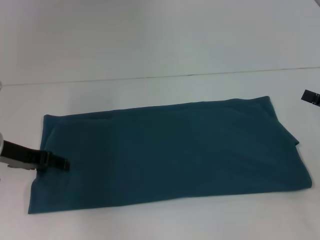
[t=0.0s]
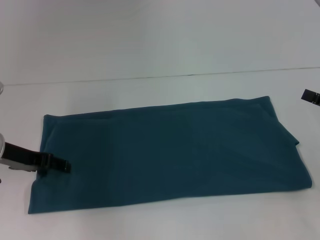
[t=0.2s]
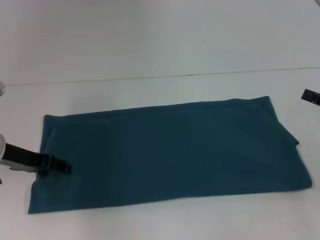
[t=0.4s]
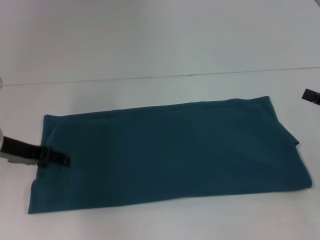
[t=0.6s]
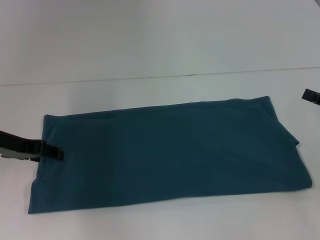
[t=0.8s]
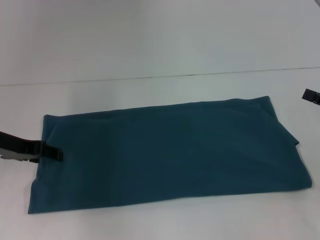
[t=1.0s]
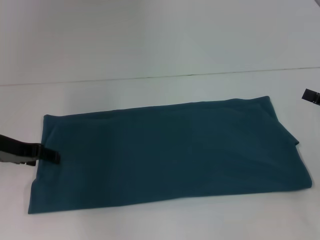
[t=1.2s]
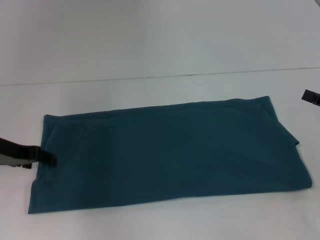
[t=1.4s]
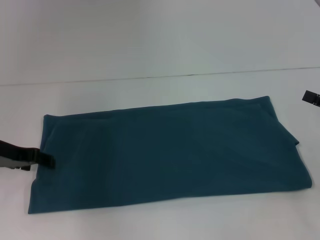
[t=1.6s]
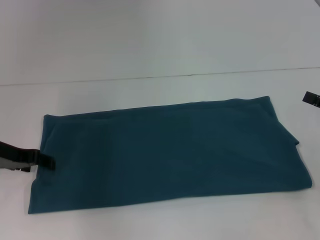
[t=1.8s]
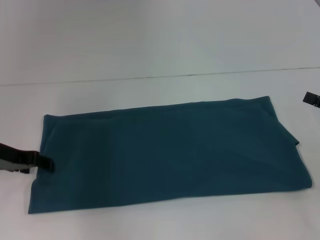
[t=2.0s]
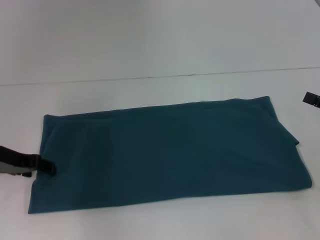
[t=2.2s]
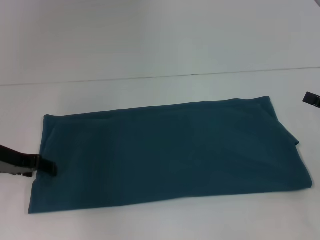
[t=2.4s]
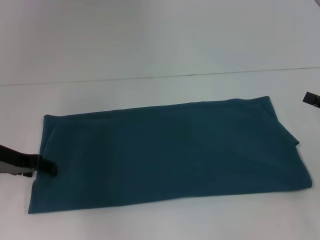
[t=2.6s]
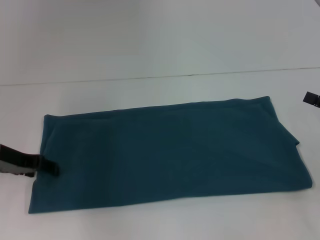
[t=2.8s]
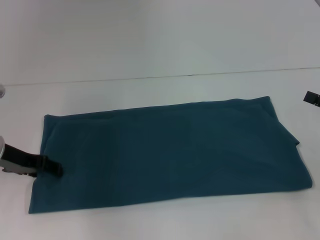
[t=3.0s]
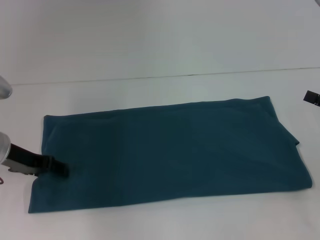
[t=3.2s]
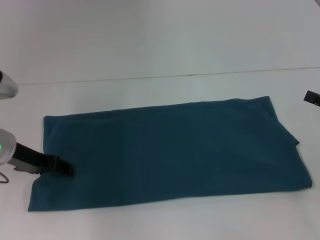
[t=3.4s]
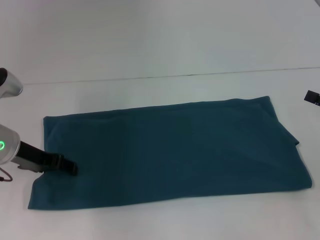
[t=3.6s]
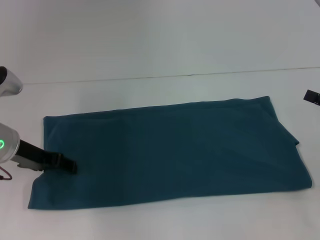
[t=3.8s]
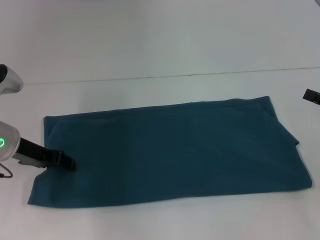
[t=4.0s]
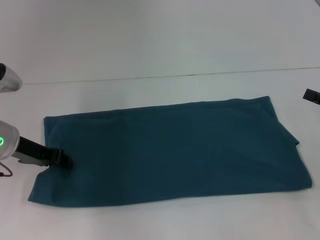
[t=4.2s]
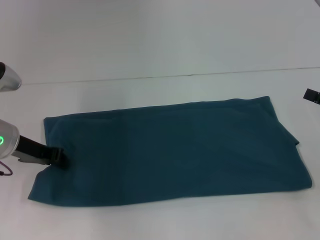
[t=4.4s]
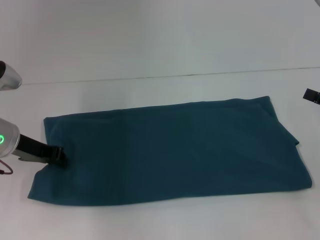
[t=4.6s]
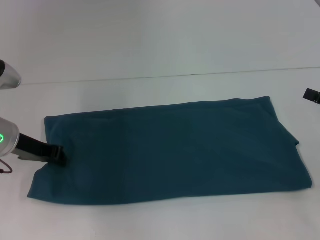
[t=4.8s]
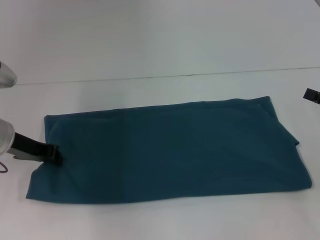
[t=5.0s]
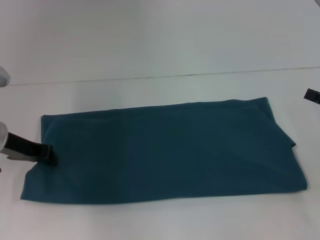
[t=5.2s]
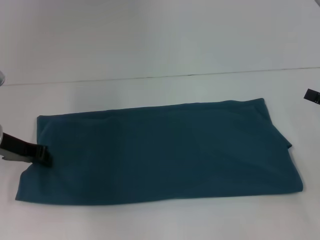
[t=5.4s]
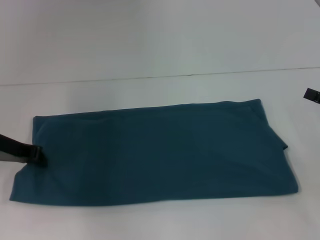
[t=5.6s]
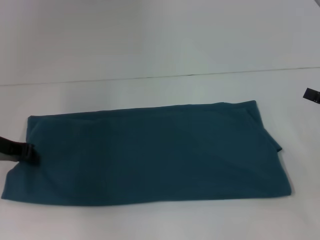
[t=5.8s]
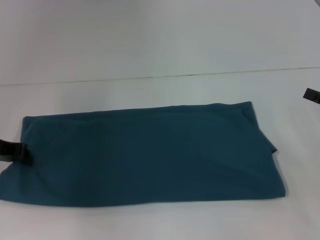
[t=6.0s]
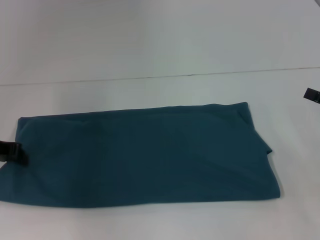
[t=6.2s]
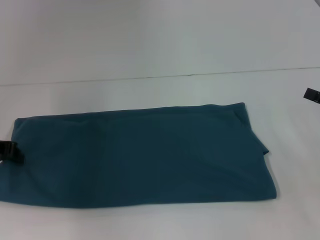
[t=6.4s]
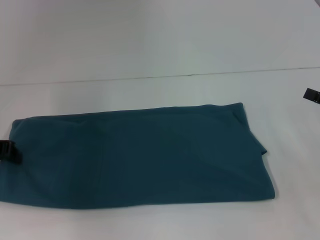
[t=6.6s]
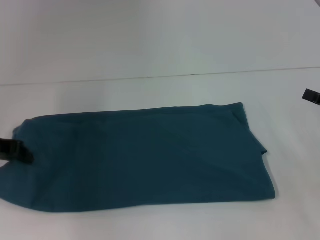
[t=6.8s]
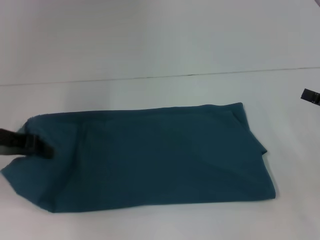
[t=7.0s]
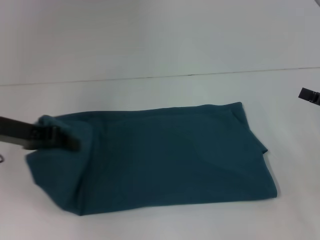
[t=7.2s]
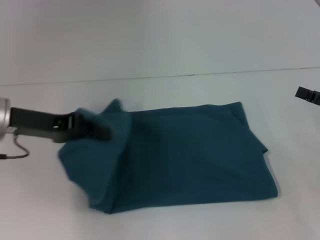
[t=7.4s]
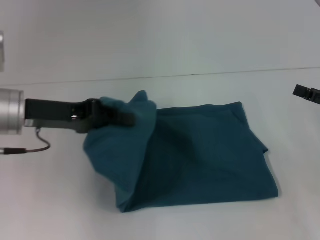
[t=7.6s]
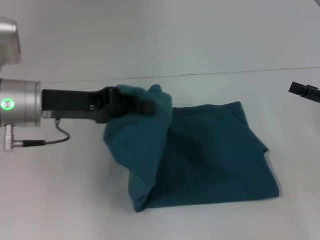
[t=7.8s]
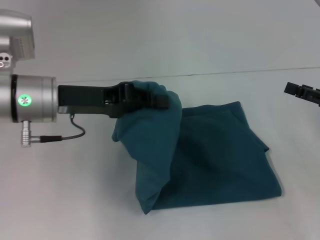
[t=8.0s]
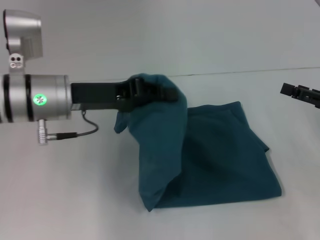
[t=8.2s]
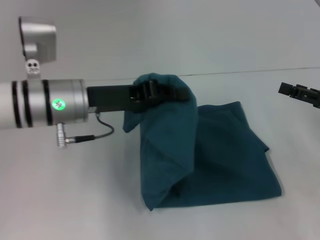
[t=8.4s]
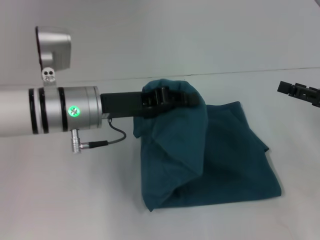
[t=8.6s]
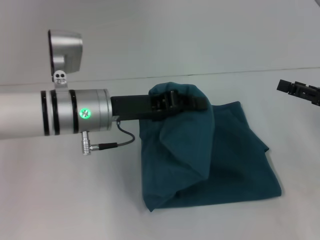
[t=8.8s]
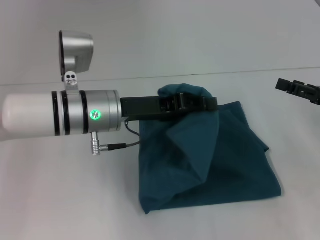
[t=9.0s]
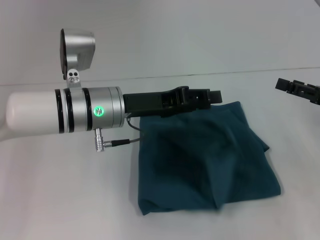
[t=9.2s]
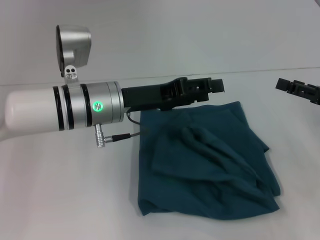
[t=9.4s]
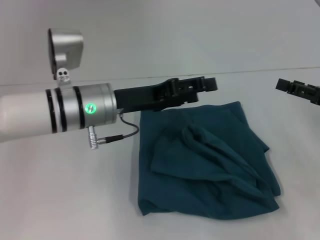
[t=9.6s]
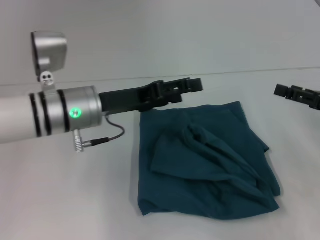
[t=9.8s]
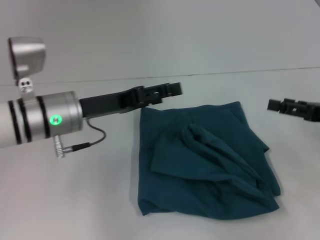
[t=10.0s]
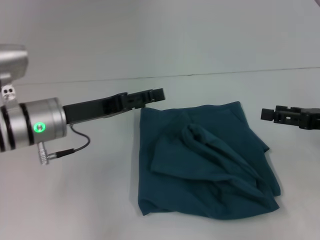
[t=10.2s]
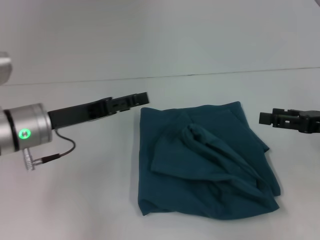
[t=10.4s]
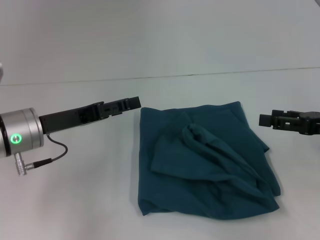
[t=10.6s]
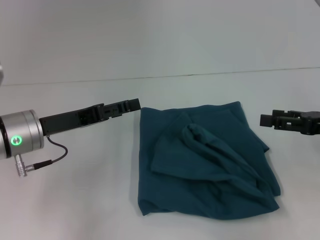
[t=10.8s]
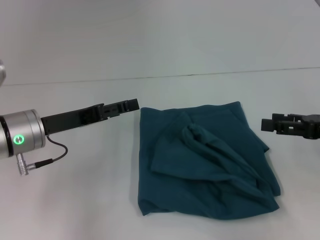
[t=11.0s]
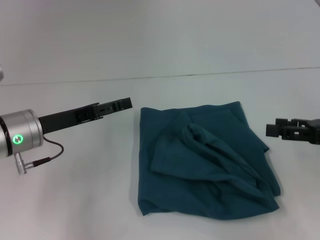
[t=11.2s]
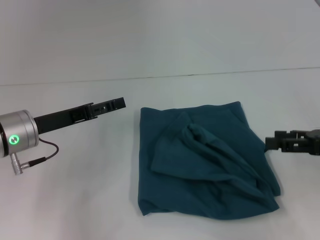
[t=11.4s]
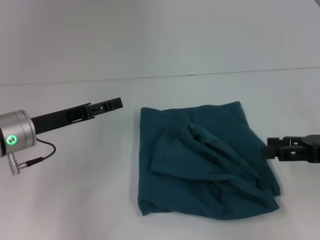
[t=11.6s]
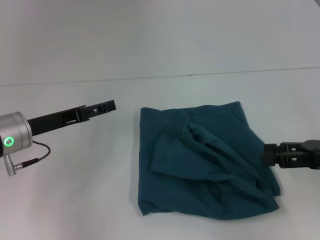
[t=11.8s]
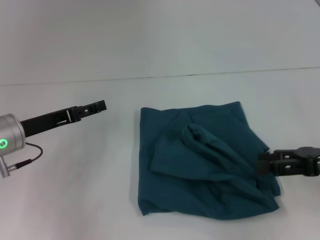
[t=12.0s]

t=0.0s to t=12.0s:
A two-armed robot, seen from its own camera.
Step, t=0.0s to t=9.8s: Fold the clothes to the left.
t=1.6s to t=4.4s: The grippers move only a little.
t=4.4s to t=6.0s: The left gripper shifts about 5 cm to the left, and closes up.
t=6.0s to t=7.6s: The left gripper heads to the right, covering some 10 cm.
t=7.6s to t=9.0s: The left gripper goes about 10 cm to the right.
t=9.0s to t=10.4s: The left gripper heads to the left, covering about 10 cm, and opens its fingers.
t=10.4s to t=12.0s: The left gripper changes place by approximately 5 cm.

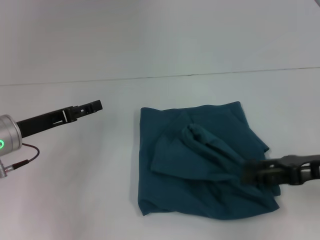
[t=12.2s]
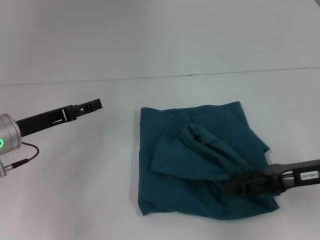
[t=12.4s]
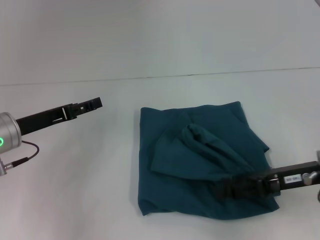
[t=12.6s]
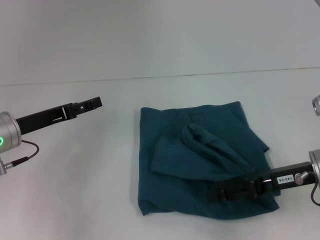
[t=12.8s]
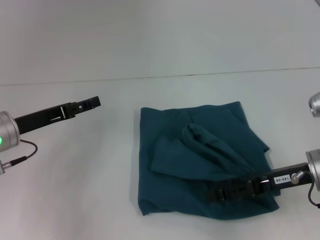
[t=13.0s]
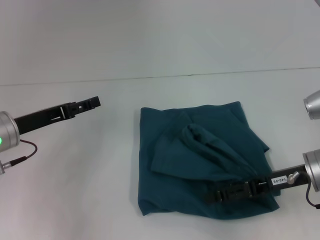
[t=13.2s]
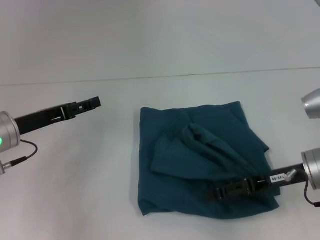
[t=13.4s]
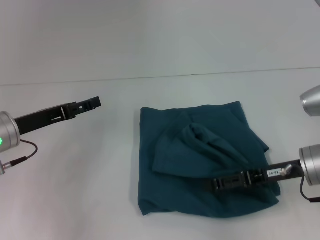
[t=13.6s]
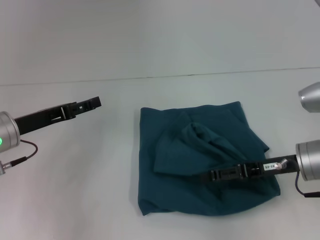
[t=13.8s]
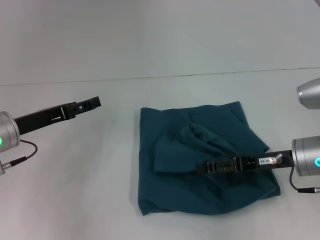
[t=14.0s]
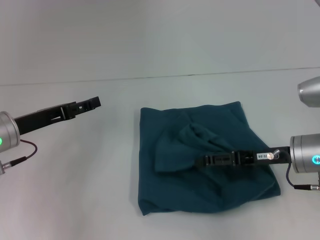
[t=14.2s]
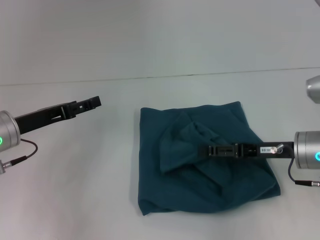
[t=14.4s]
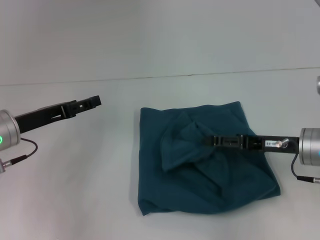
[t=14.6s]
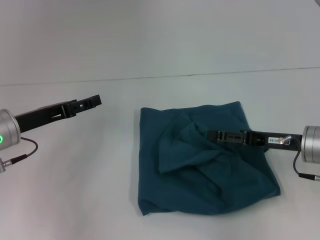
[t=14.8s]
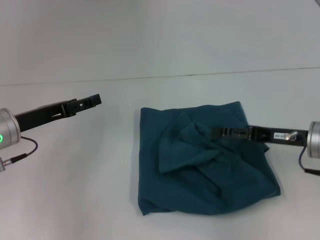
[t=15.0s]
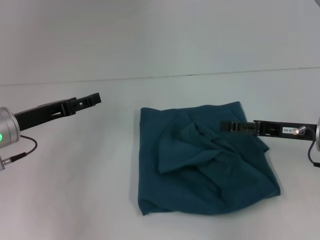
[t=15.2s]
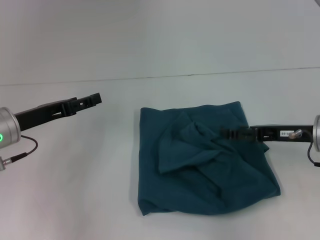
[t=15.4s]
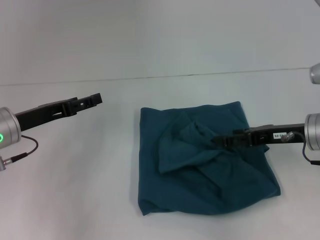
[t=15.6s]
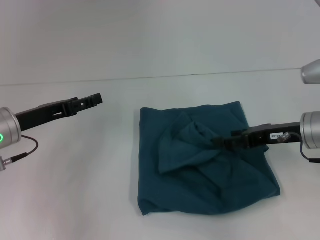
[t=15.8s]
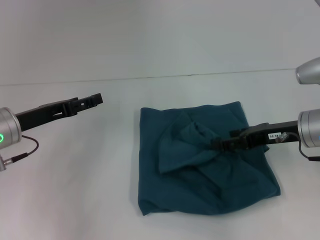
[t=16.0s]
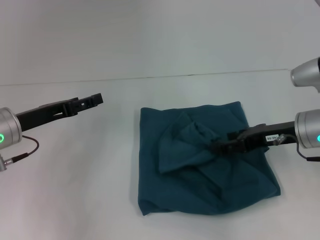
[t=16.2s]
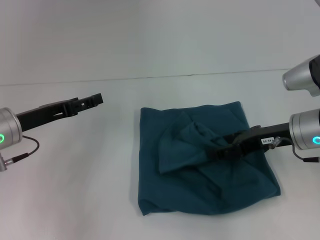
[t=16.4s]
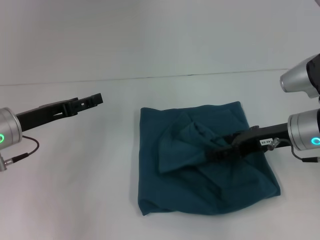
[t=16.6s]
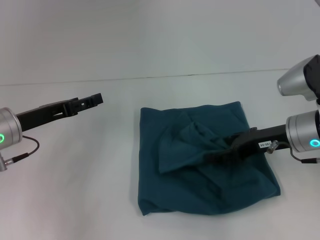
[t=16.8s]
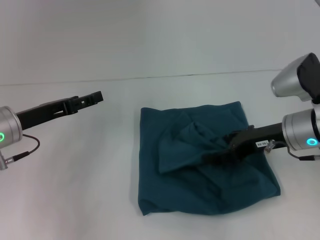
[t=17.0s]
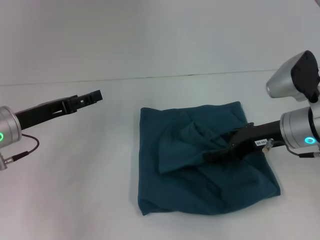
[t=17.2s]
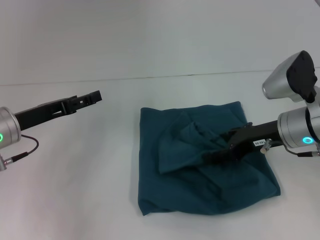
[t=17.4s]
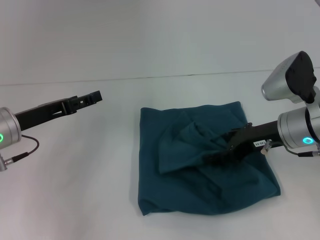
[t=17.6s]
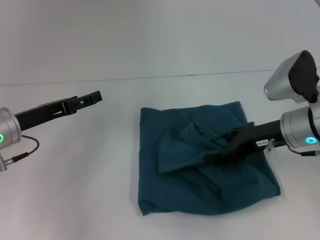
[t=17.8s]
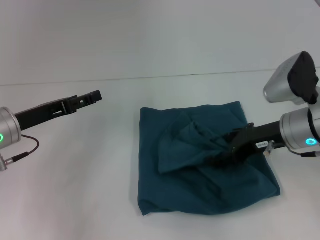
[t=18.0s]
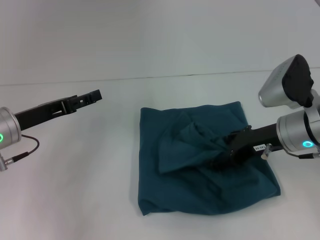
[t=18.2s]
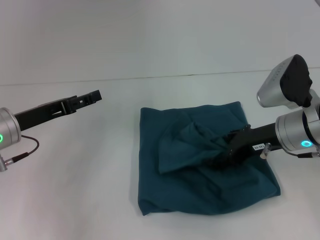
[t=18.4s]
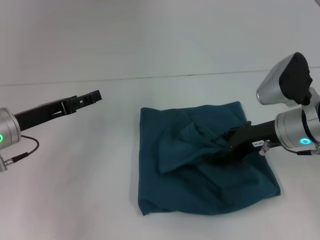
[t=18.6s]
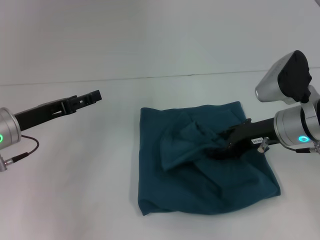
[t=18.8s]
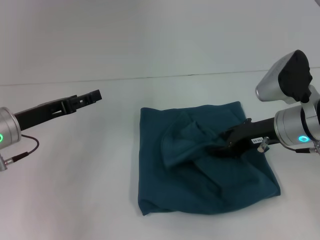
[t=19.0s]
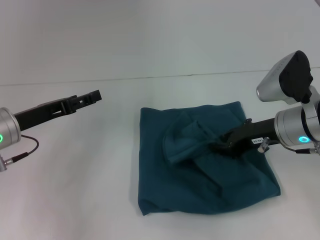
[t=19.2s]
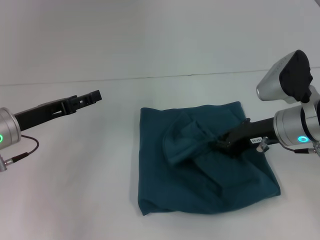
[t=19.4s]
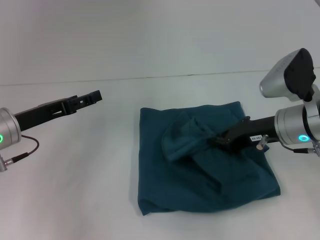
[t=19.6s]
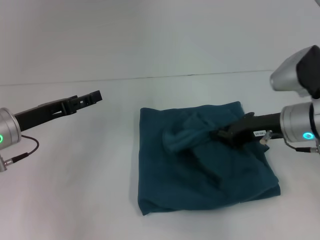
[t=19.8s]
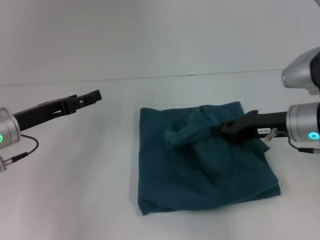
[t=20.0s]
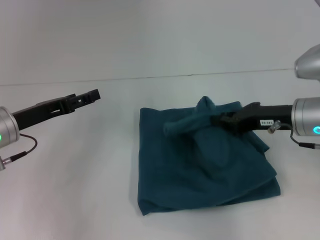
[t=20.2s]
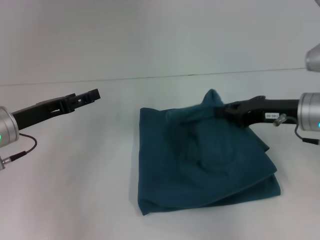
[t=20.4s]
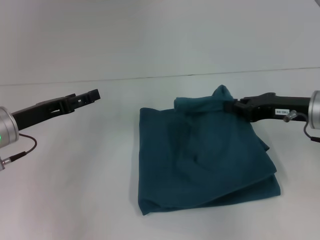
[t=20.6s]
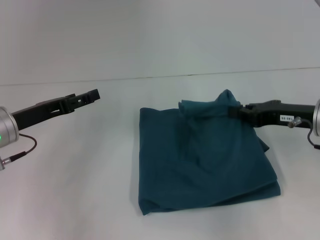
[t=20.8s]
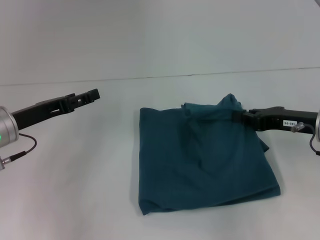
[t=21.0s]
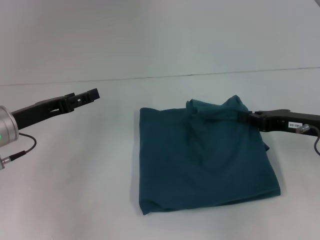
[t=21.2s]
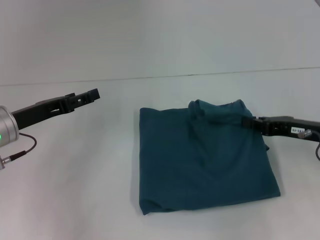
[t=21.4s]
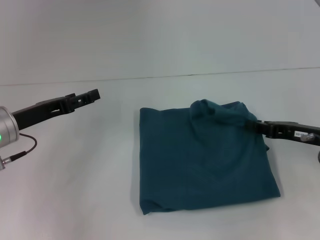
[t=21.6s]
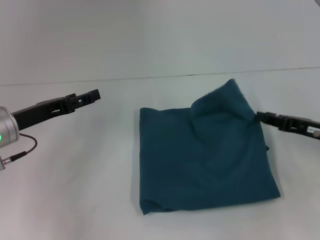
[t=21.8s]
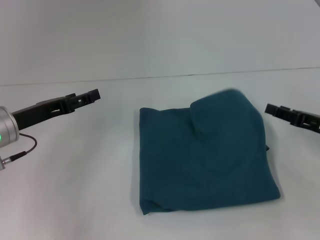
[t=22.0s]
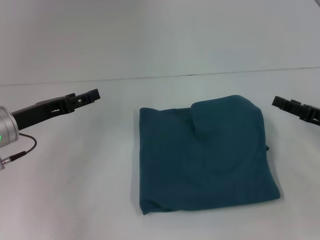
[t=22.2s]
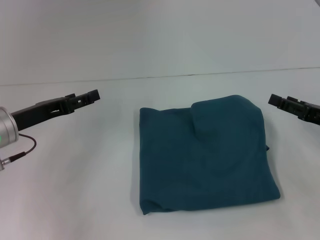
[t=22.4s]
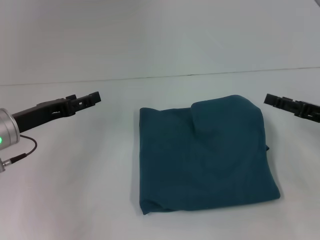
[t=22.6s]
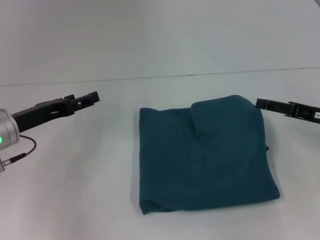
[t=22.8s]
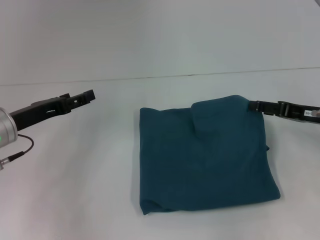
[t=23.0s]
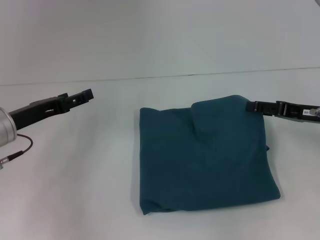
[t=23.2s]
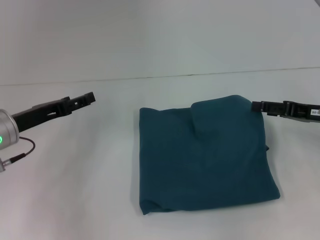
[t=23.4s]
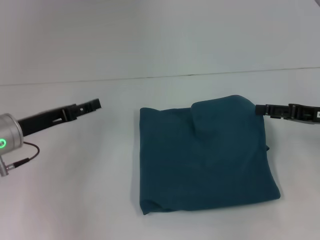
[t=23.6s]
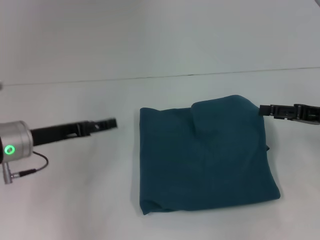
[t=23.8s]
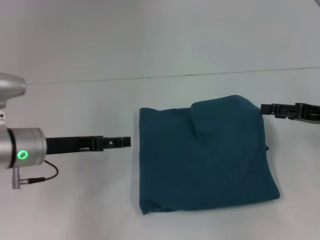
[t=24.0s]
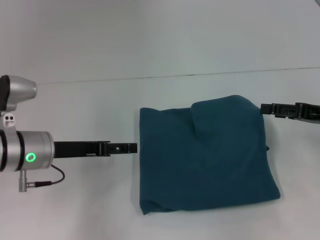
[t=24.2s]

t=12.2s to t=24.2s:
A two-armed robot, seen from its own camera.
t=12.2s to t=13.8s: The right gripper goes approximately 5 cm to the left.
t=13.8s to t=15.2s: The grippers move only a little.
t=16.6s to t=18.2s: There are only small adjustments of the grippers.
t=18.2s to t=19.8s: The right gripper closes up.
t=19.8s to t=21.2s: The right gripper heads to the right, covering roughly 5 cm.
t=21.2s to t=22.6s: The right gripper changes place by approximately 5 cm, and opens its fingers.
